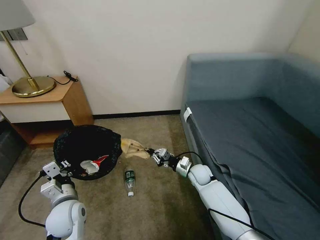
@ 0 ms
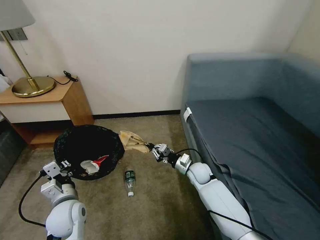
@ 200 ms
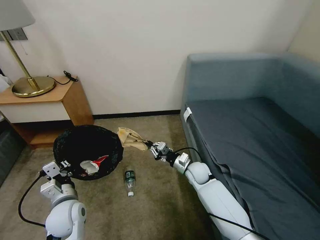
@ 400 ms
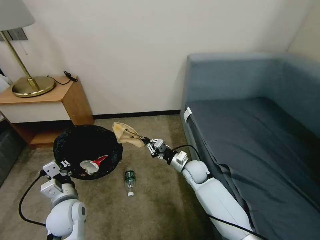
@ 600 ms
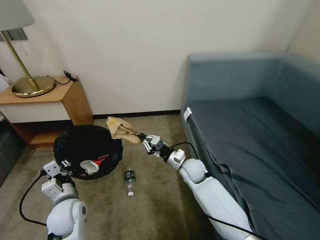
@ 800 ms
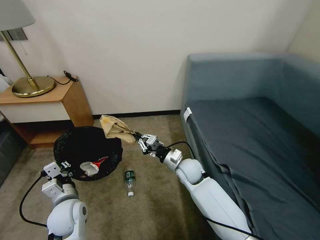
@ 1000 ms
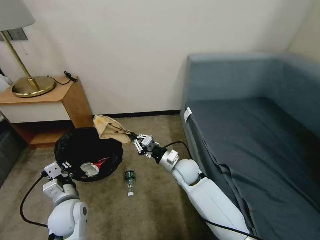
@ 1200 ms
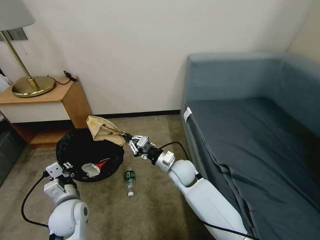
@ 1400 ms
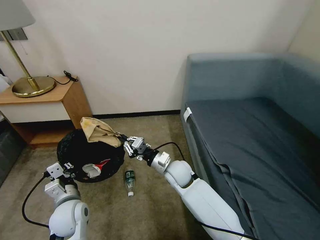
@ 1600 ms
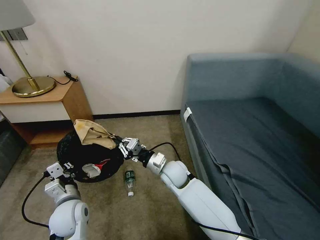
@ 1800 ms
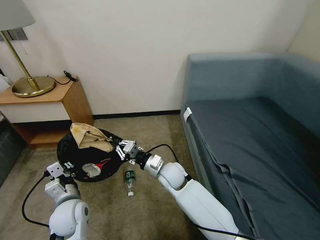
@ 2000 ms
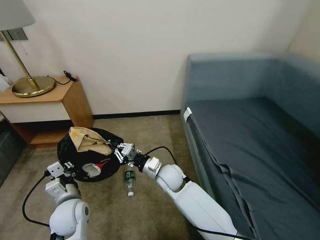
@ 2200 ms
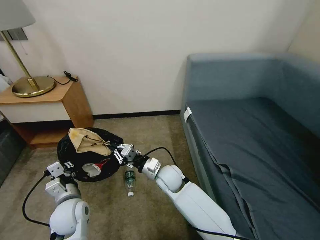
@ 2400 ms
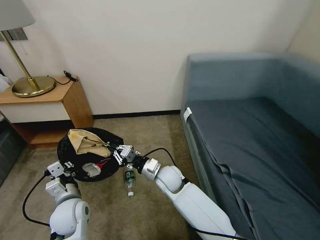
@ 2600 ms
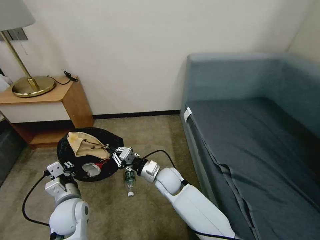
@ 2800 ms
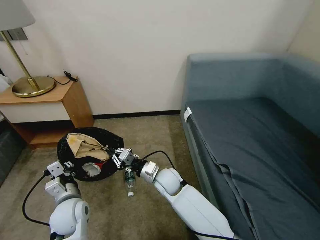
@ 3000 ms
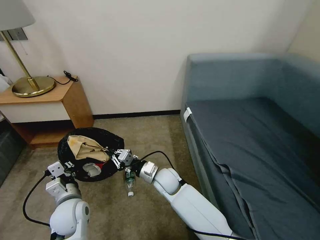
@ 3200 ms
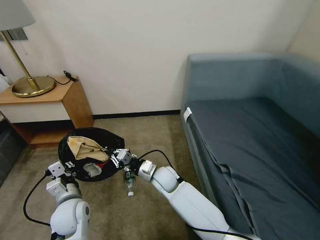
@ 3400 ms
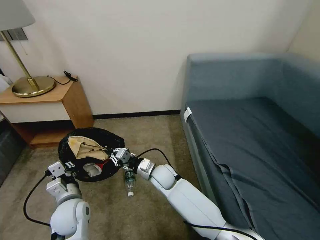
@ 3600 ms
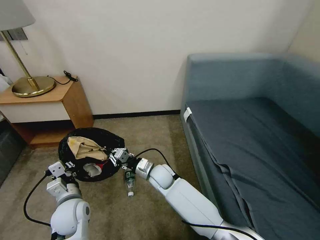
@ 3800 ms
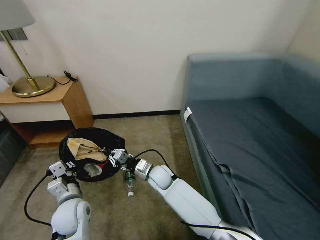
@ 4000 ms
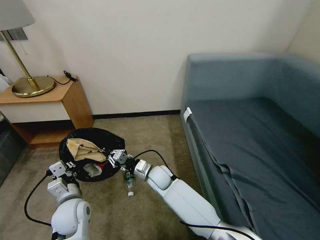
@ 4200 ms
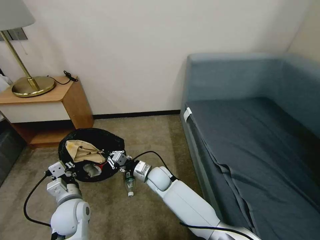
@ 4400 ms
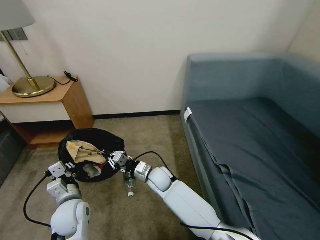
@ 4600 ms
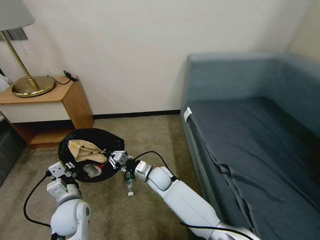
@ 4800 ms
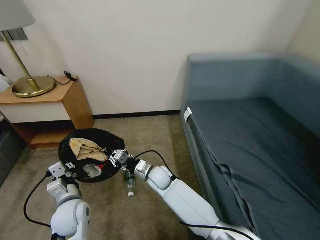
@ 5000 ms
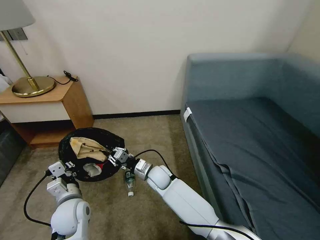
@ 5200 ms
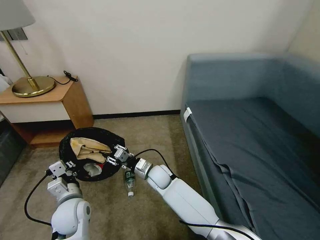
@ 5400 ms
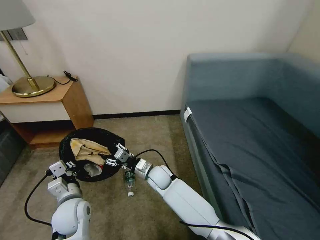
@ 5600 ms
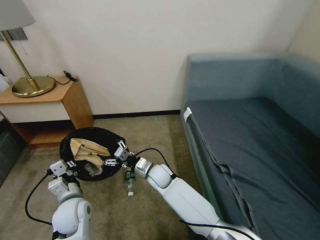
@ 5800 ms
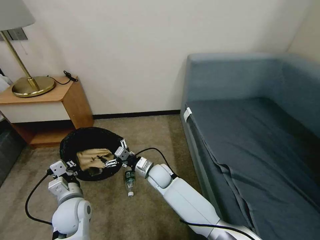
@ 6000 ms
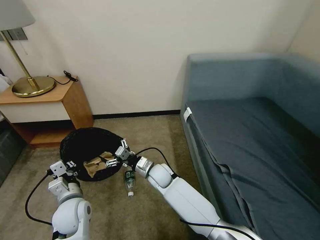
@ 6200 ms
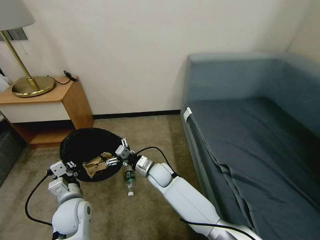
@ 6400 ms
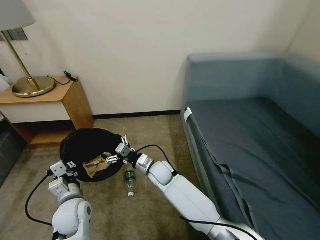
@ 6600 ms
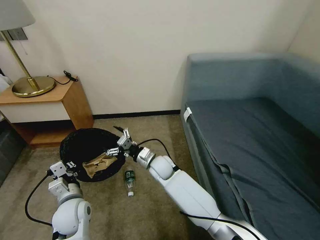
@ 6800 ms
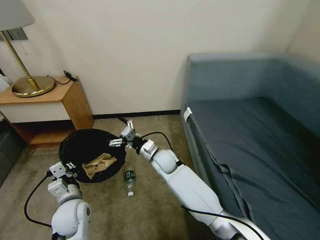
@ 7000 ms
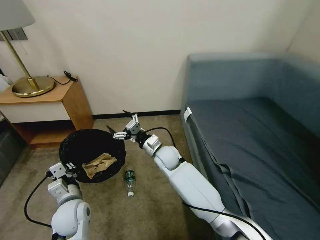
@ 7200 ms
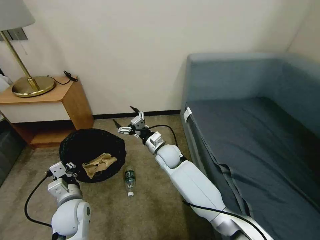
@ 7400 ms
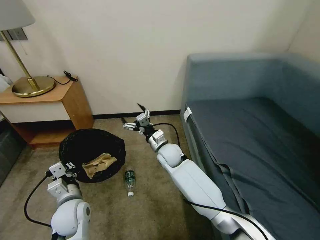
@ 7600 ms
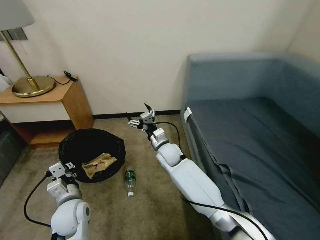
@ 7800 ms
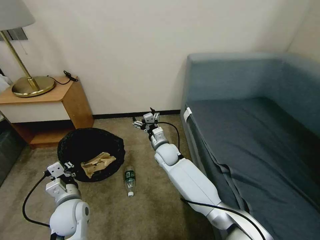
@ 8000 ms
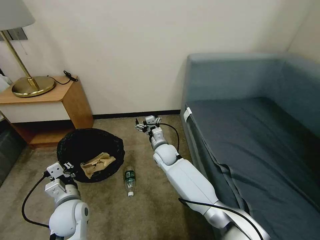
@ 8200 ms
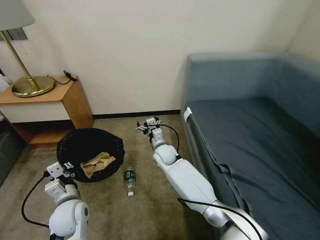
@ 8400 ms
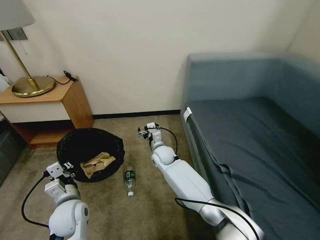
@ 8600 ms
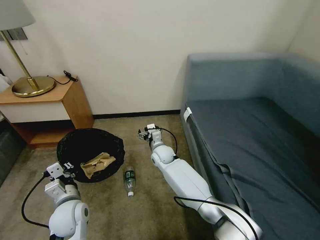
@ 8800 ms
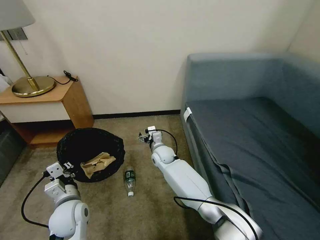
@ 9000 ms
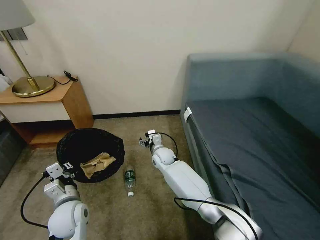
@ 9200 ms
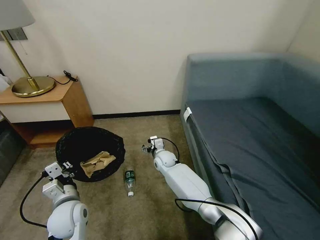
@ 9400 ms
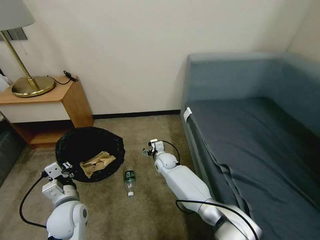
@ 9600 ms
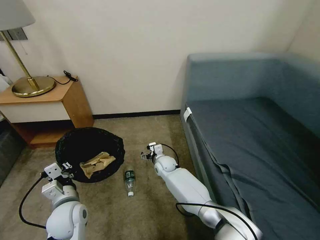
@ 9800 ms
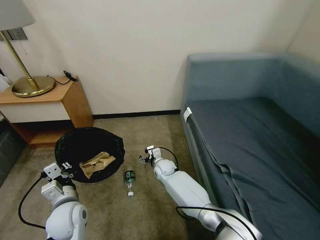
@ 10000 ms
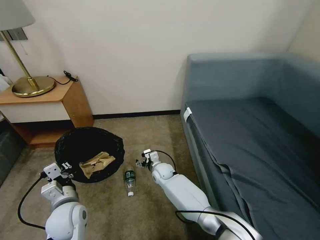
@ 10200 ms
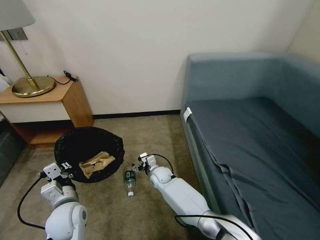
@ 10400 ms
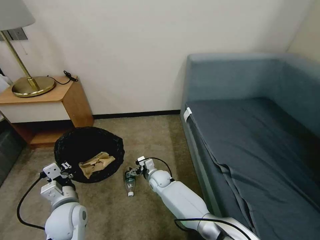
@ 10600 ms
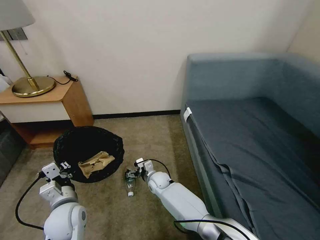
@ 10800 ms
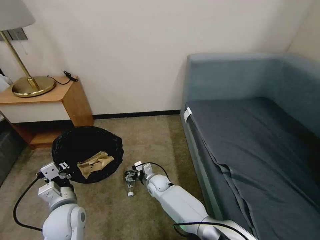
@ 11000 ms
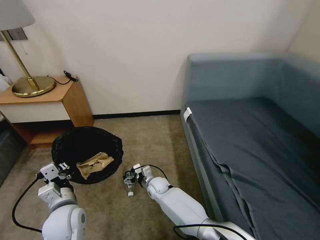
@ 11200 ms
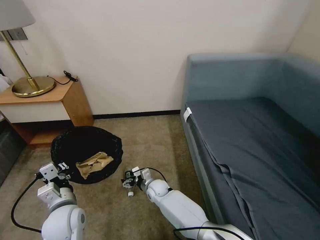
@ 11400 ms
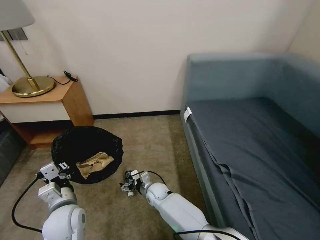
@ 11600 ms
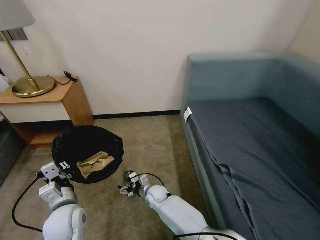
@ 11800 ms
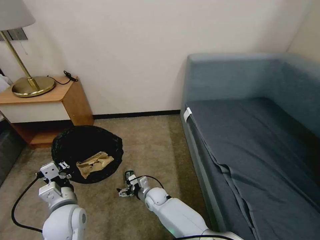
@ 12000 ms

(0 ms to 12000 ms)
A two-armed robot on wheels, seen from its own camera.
Task of the whole recording: Pick up the trash bin, then pick up the garbage on the floor and place it into the trash bin.
0 ms - 1600 ms: The right gripper is displaced to the left and upward by about 15 cm.
1600 ms - 3000 ms: There are only small adjustments of the grippers.
3000 ms - 4400 ms: The right gripper ends up about 5 cm from where it was.
4400 ms - 6000 ms: The right gripper opens its fingers.
6000 ms - 7600 ms: The right gripper moves upward and forward, roughly 10 cm.
7600 ms - 9000 ms: The right gripper travels downward by roughly 5 cm.
9000 ms - 10400 ms: The right gripper is displaced downward and backward by roughly 10 cm.
10400 ms - 12000 ms: The right gripper shifts about 10 cm backward.

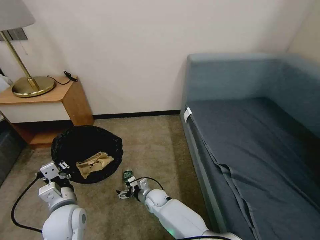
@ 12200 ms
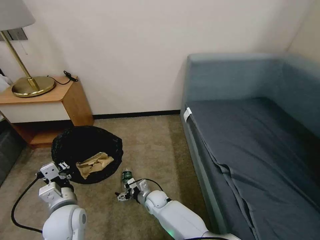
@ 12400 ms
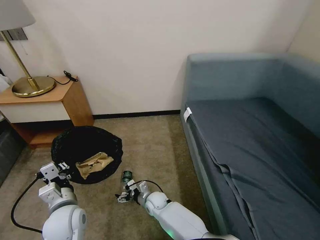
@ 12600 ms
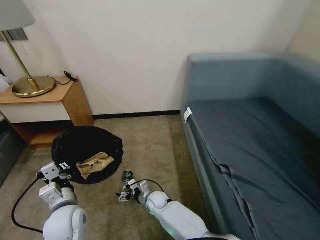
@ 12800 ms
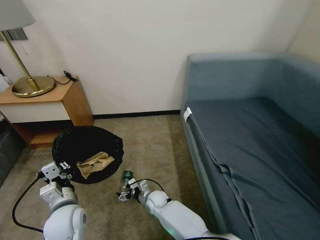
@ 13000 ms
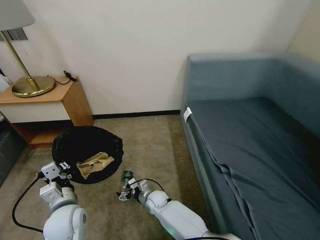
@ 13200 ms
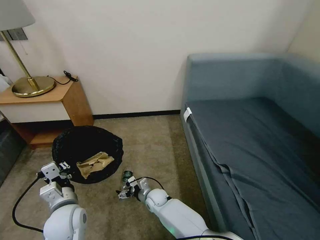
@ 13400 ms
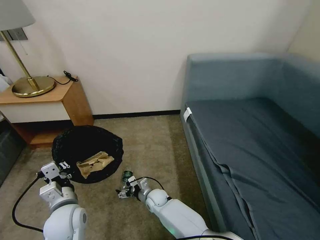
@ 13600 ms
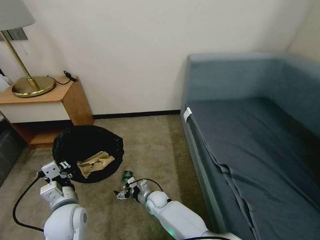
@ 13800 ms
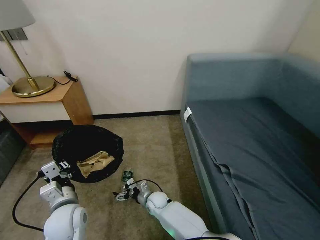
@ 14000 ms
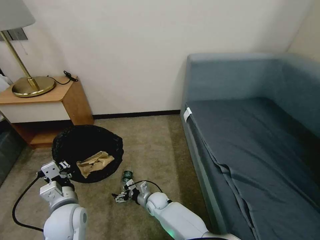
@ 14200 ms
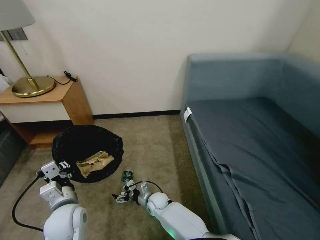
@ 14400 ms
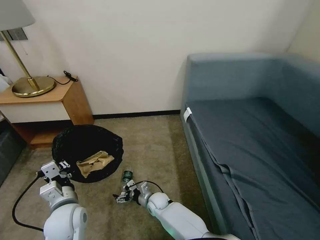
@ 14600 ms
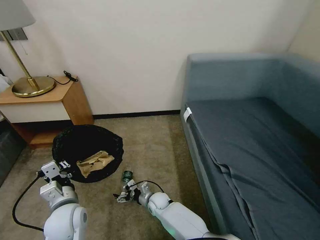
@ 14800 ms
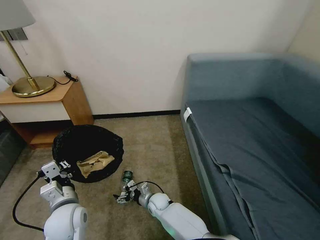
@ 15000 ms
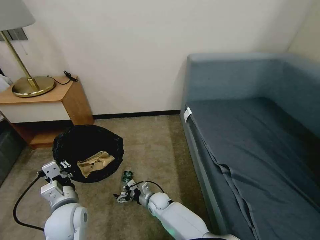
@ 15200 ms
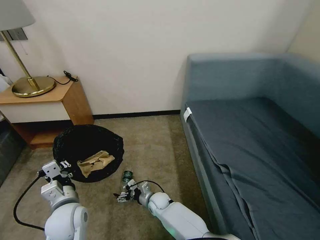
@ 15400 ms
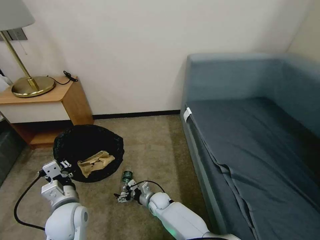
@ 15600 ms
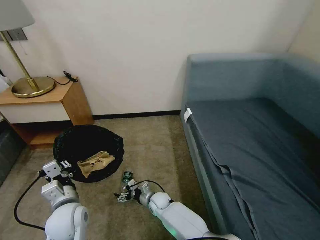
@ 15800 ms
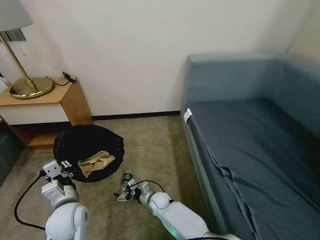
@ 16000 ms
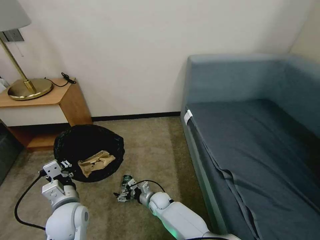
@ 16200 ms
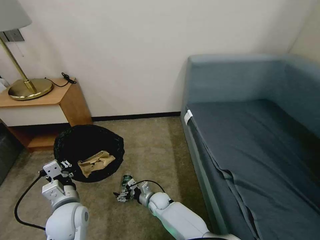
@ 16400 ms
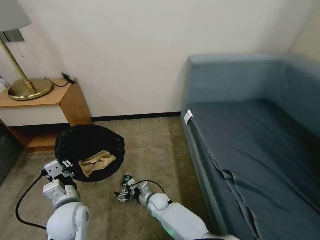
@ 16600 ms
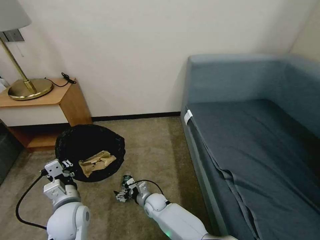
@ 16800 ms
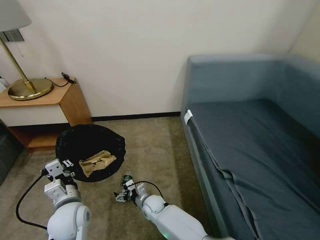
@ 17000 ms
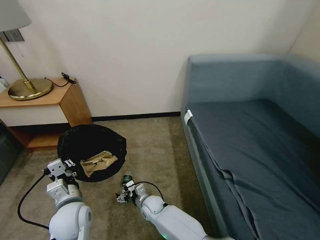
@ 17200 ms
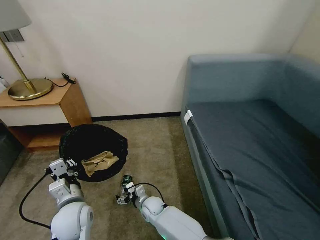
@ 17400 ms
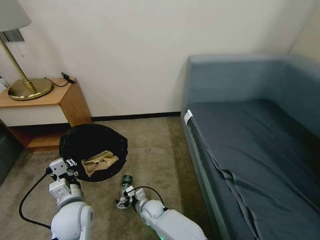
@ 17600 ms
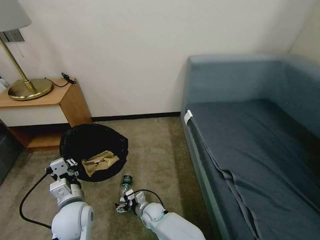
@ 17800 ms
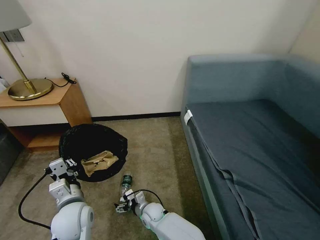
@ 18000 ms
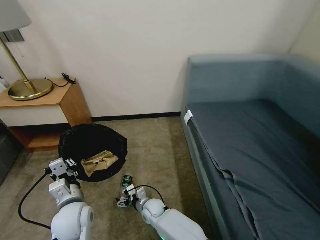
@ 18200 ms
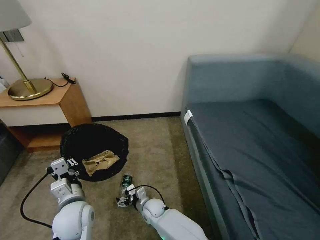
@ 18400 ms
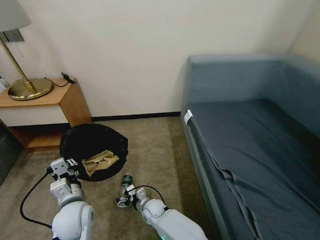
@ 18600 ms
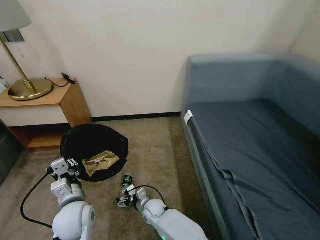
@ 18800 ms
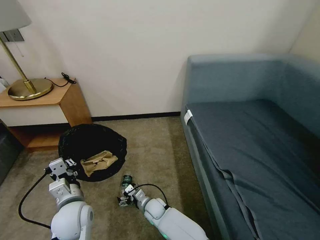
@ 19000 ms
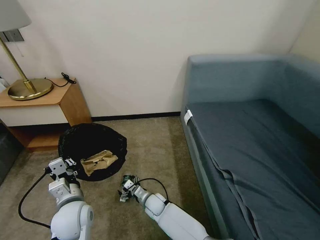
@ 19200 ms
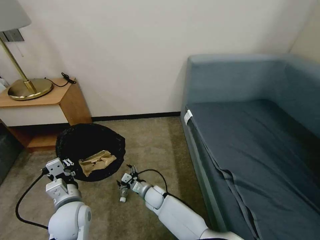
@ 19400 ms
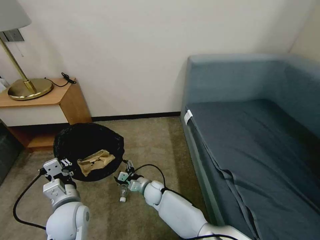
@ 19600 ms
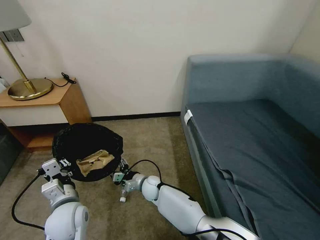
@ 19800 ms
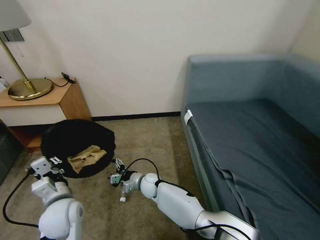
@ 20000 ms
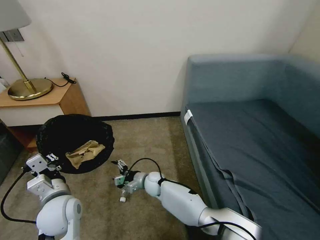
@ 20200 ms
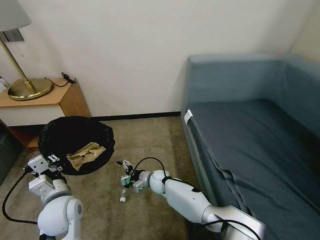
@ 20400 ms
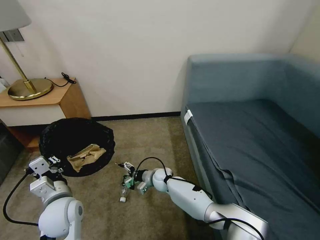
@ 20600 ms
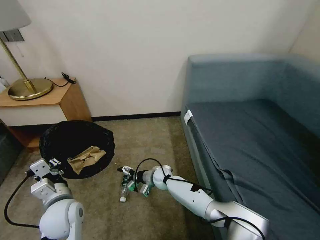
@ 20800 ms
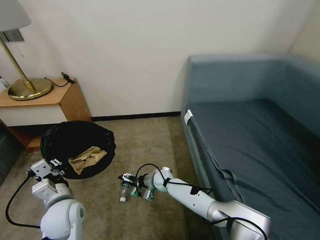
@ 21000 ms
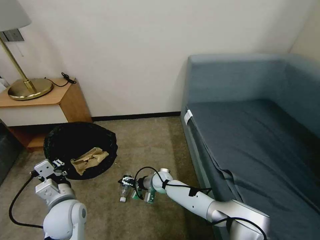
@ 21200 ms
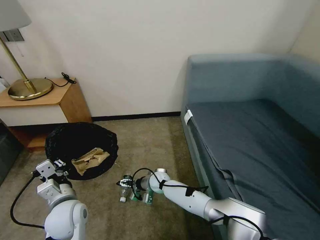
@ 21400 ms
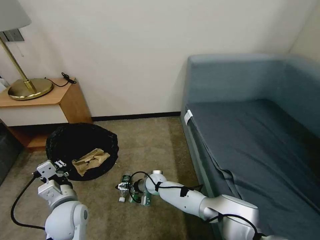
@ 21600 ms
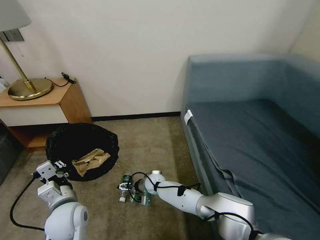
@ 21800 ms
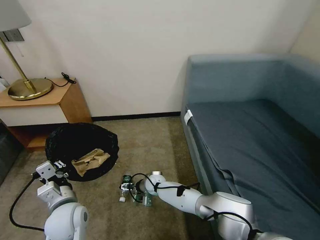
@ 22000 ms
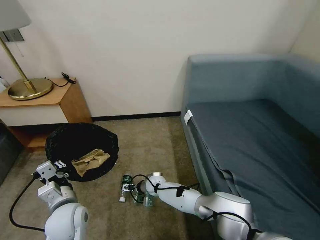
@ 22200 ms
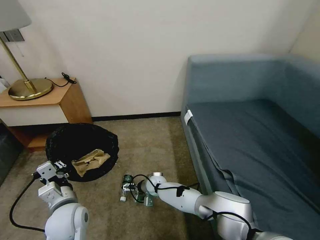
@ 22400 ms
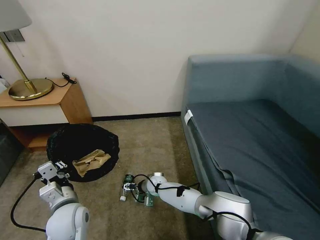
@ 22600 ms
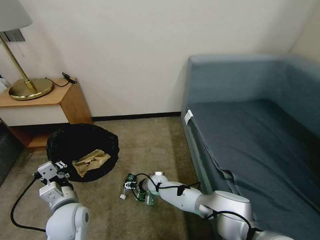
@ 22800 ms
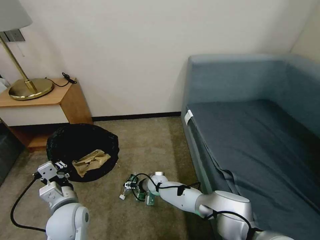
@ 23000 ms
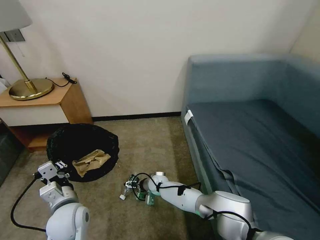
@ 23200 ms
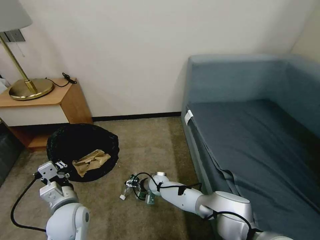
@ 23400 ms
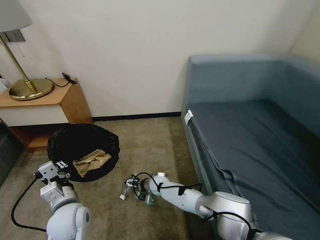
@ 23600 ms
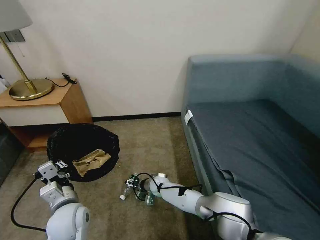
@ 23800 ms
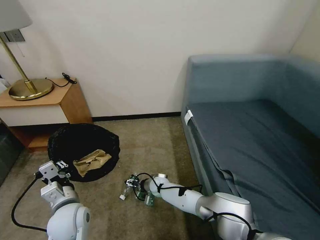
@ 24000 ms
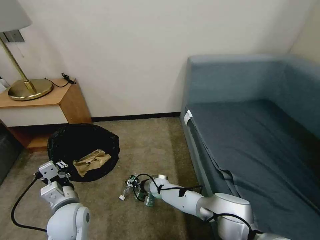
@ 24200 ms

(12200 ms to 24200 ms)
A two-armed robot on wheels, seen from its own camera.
Task of the whole recording: Pick up the trash bin, then pick up the garbage on the floor and place it into the trash bin.
12200 ms - 13800 ms: The two grippers keep their place.
13800 ms - 15200 ms: The grippers make only small movements.
15200 ms - 16600 ms: The two grippers keep their place.
16600 ms - 18200 ms: The grippers make only small movements.
18200 ms - 19800 ms: The right gripper heads forward and upward, covering about 10 cm.
19800 ms - 21200 ms: The right gripper travels to the right by some 5 cm.
21200 ms - 24200 ms: The grippers stay close to where they were, moving slightly.
